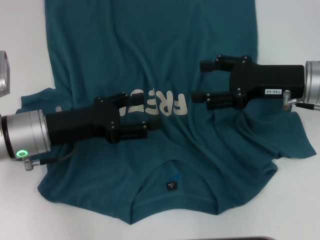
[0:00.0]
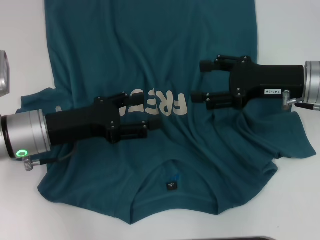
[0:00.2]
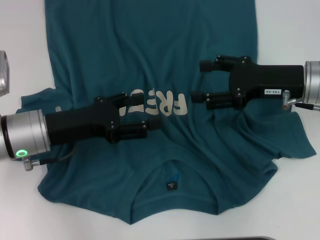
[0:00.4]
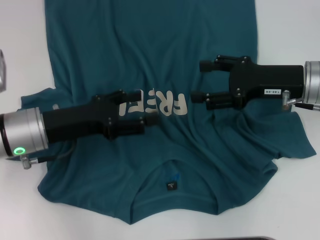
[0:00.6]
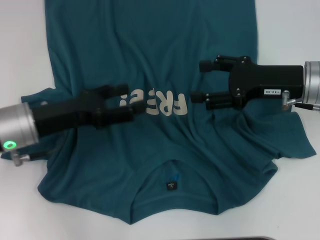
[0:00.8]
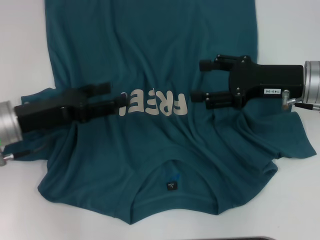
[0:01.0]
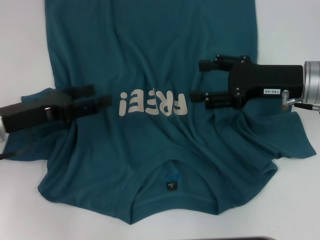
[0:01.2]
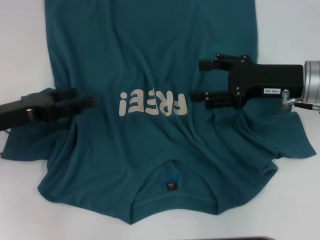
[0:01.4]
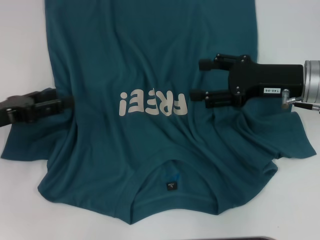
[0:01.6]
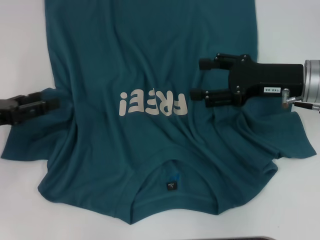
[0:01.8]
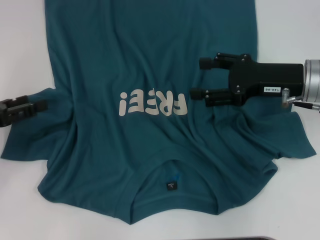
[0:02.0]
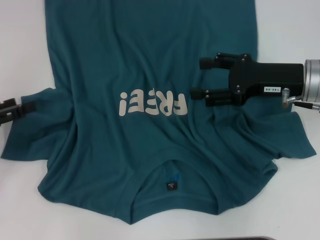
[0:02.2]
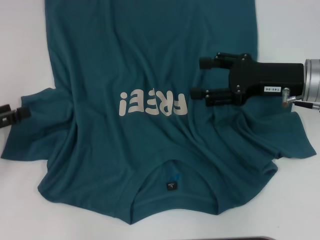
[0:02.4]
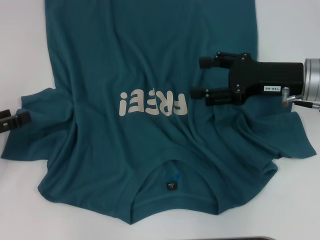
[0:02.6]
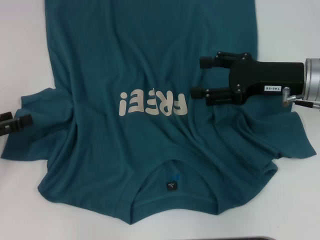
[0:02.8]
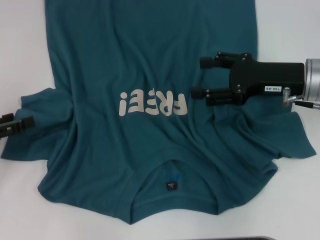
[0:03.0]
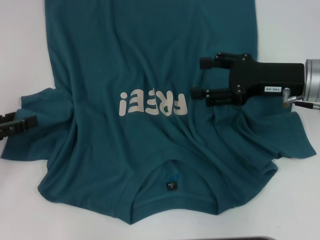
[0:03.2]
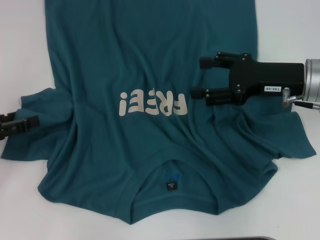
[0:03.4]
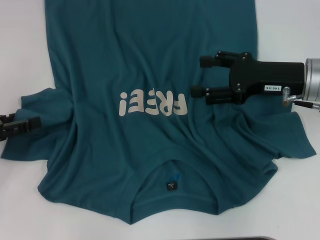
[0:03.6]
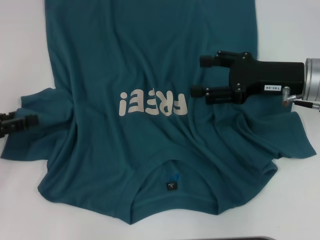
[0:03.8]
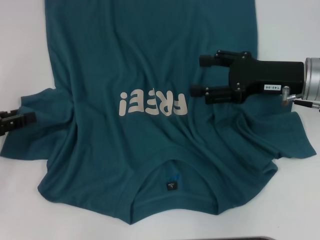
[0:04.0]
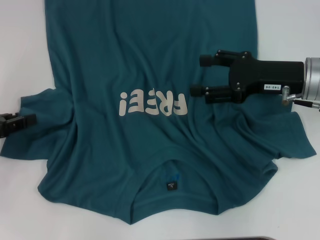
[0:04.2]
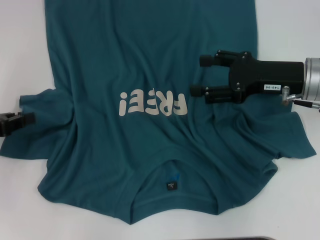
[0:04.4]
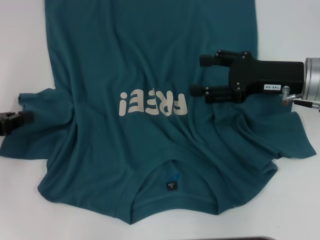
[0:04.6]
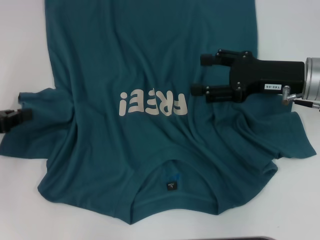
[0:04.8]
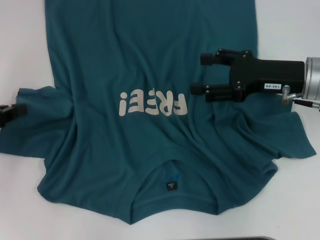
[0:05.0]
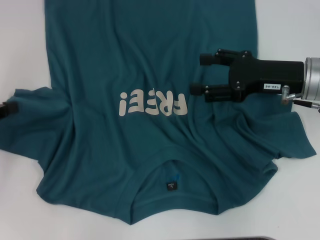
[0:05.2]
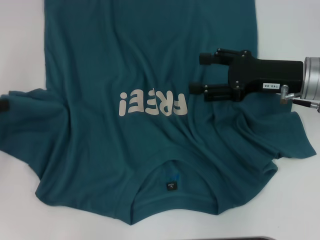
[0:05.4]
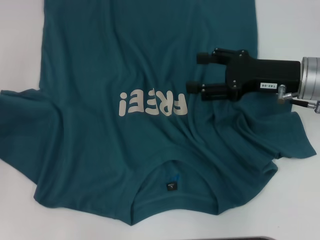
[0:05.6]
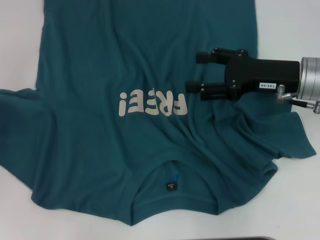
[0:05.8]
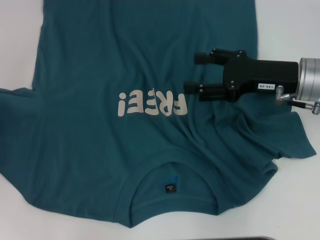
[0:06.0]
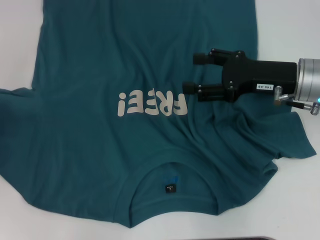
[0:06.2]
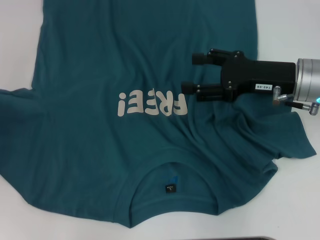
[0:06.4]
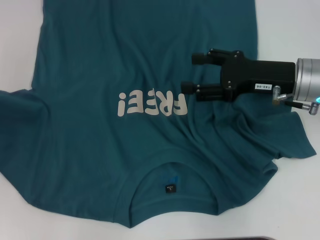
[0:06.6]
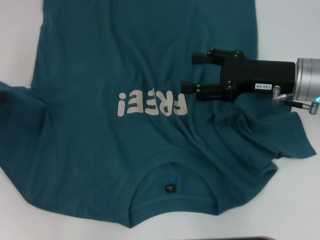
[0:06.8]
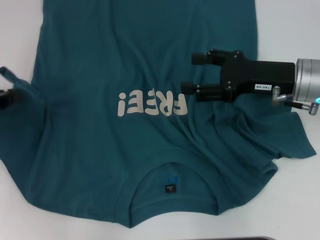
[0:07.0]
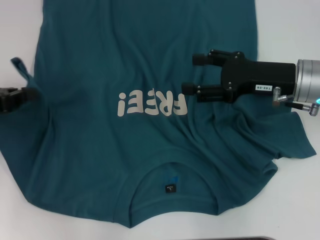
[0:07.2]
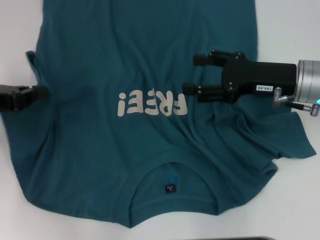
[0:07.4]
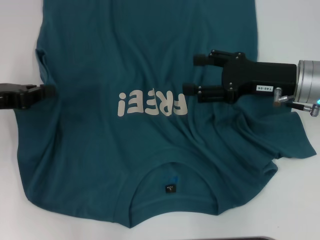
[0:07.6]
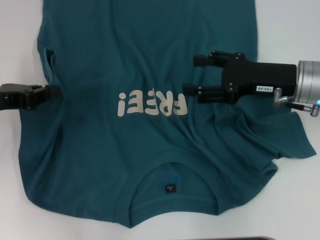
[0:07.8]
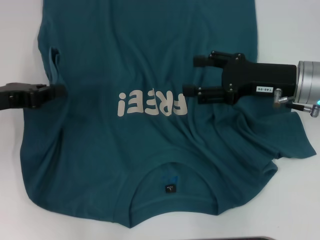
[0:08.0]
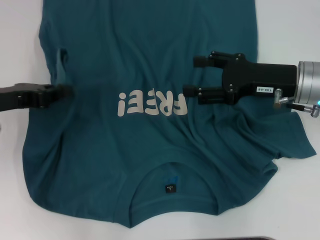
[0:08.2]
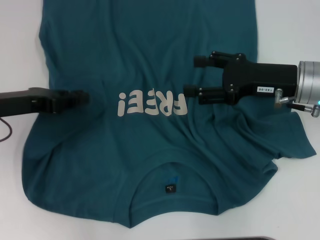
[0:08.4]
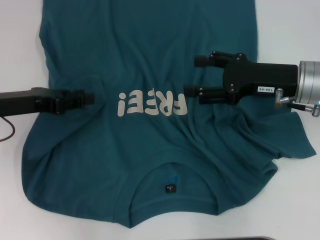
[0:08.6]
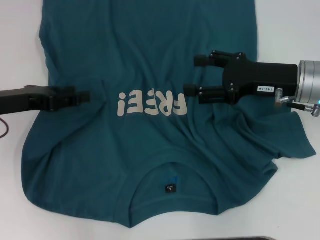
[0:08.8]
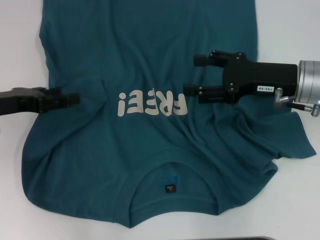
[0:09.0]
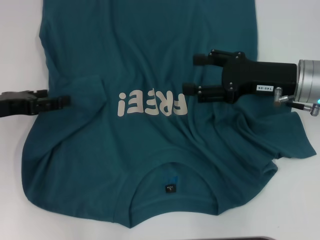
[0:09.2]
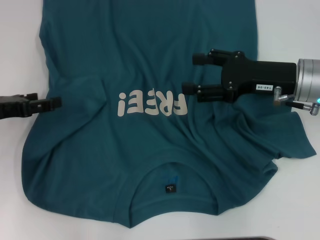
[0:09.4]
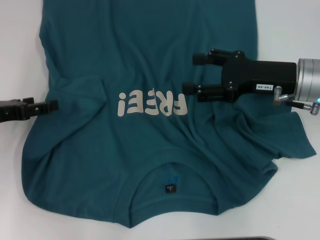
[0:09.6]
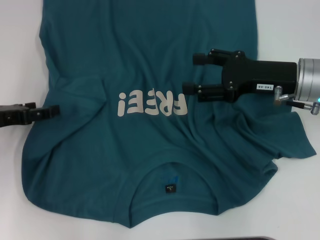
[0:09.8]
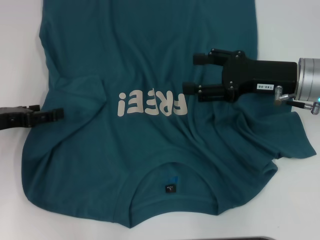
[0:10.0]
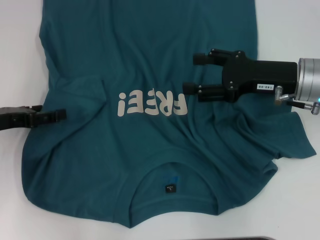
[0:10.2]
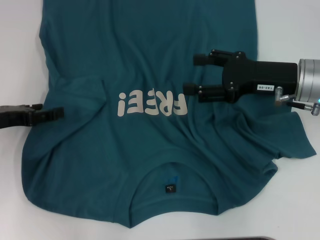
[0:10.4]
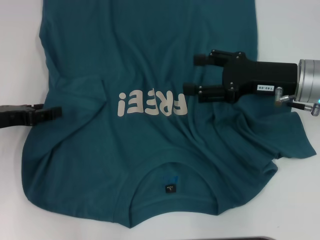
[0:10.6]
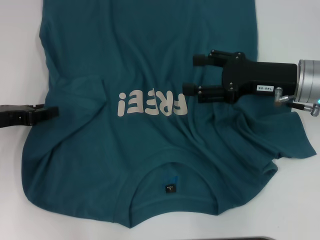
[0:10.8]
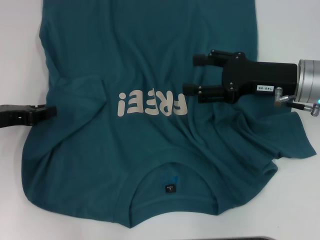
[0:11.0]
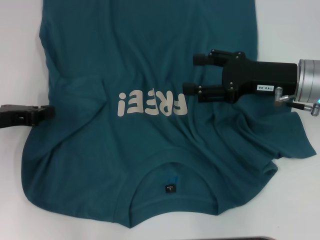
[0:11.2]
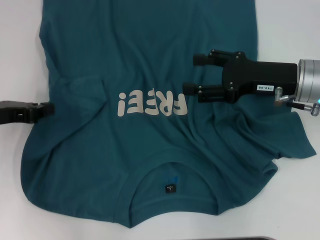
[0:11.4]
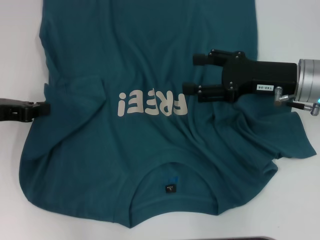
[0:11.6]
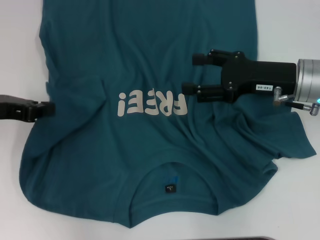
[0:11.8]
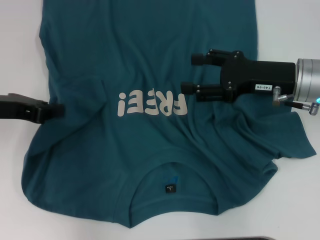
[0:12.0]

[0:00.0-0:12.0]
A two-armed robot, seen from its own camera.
0:00.0 to 0:01.6: The left gripper is displaced to the left by about 10 cm.
0:01.6 to 0:03.0: The left gripper goes about 5 cm to the left.
0:03.0 to 0:04.4: The left gripper closes.
0:04.4 to 0:06.0: The left gripper changes place by some 5 cm, and closes its fingers.
0:06.0 to 0:07.6: The left gripper moves to the right, roughly 10 cm.
0:07.6 to 0:09.0: The left gripper opens its fingers.
0:09.0 to 0:10.4: There are only small adjustments of the grippers.
0:10.4 to 0:12.0: The left gripper moves upward, roughly 5 cm, and closes.

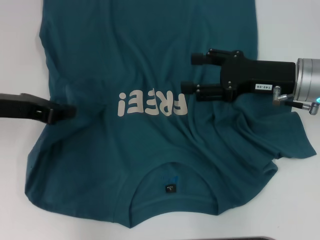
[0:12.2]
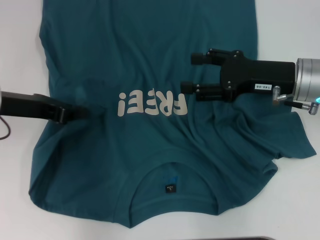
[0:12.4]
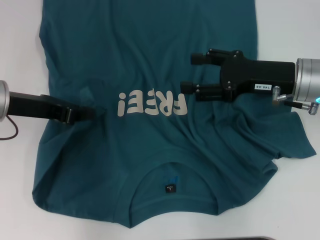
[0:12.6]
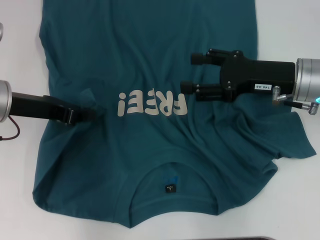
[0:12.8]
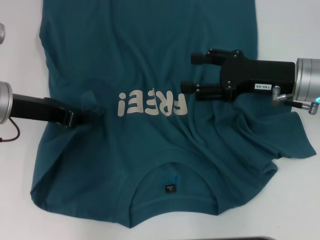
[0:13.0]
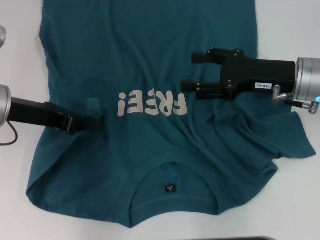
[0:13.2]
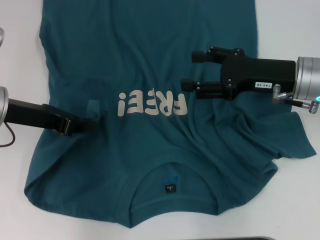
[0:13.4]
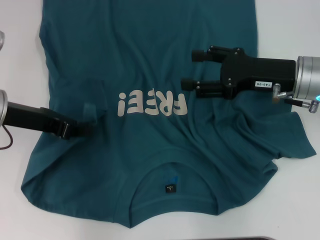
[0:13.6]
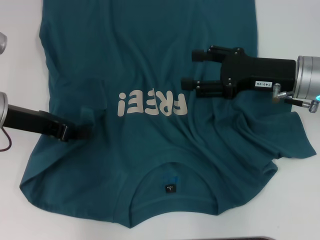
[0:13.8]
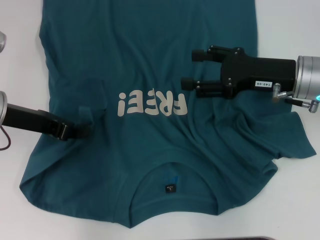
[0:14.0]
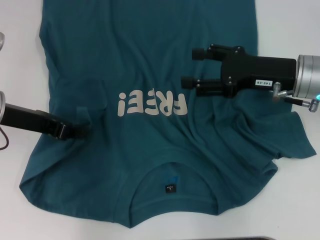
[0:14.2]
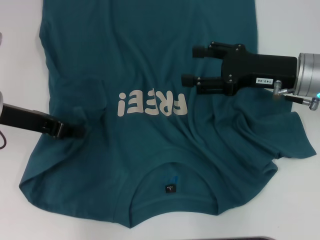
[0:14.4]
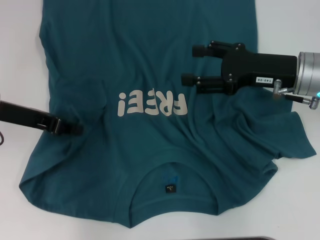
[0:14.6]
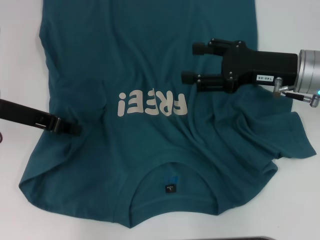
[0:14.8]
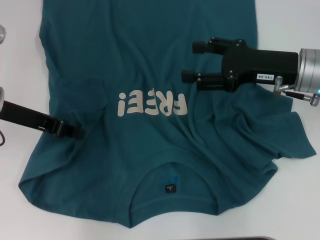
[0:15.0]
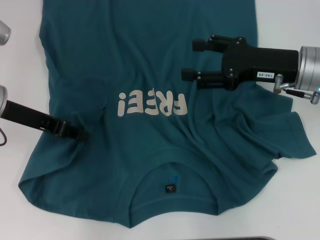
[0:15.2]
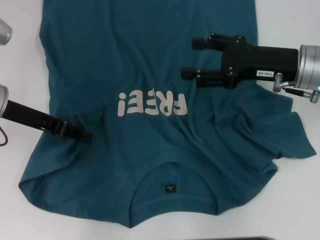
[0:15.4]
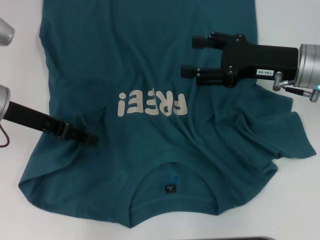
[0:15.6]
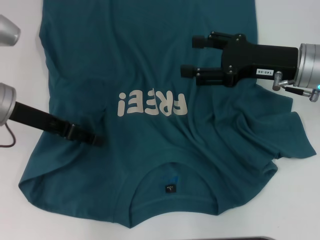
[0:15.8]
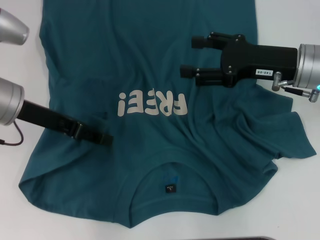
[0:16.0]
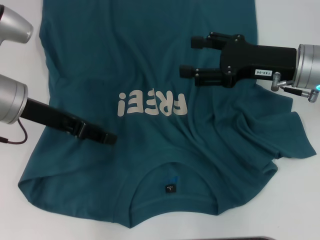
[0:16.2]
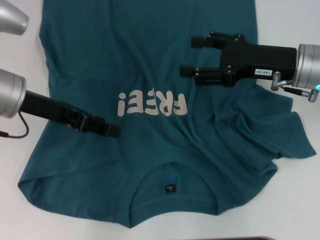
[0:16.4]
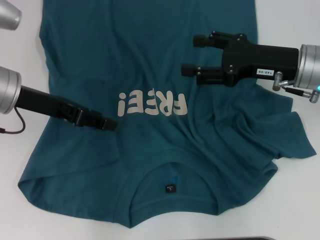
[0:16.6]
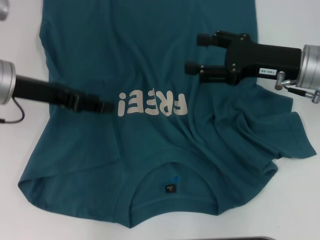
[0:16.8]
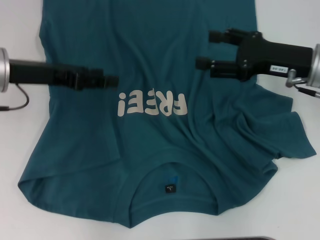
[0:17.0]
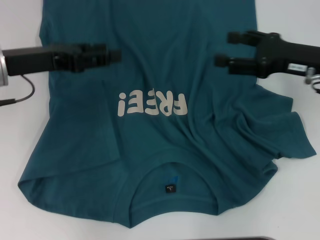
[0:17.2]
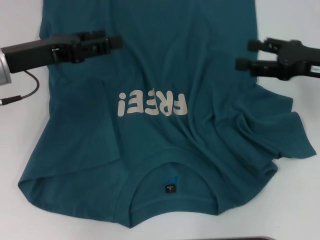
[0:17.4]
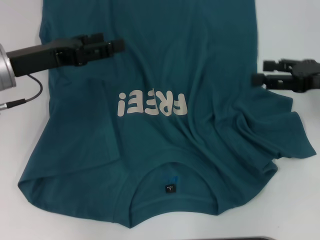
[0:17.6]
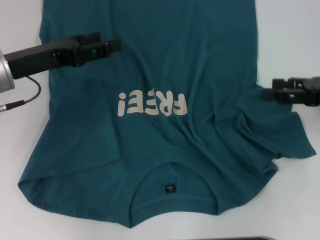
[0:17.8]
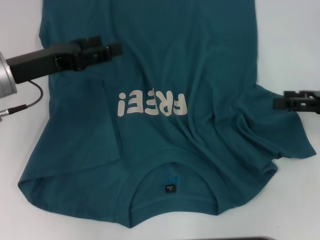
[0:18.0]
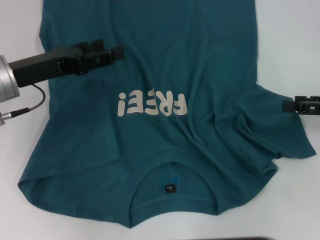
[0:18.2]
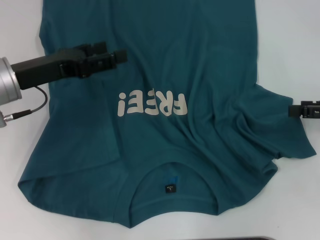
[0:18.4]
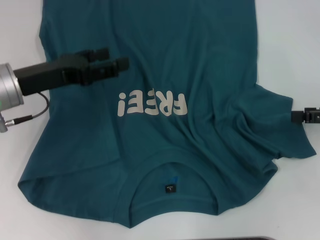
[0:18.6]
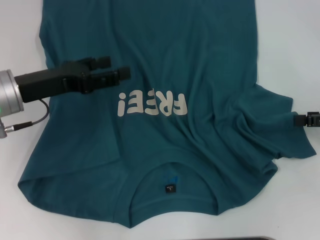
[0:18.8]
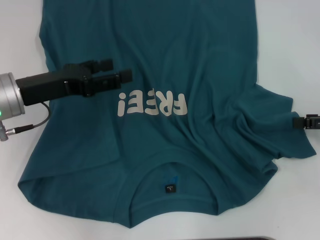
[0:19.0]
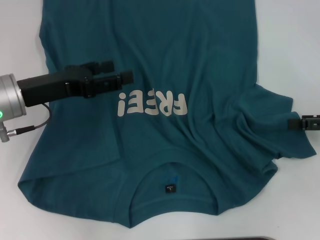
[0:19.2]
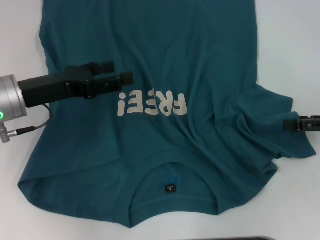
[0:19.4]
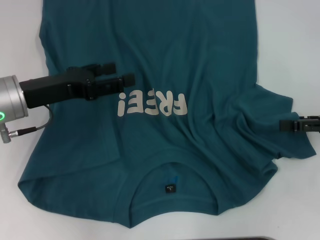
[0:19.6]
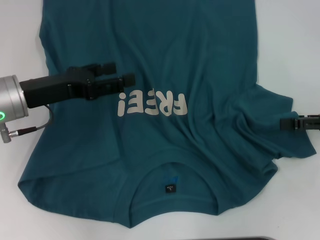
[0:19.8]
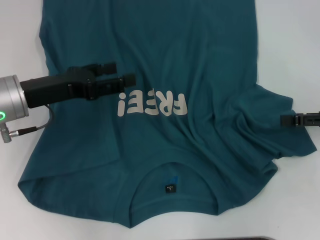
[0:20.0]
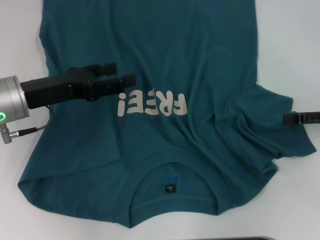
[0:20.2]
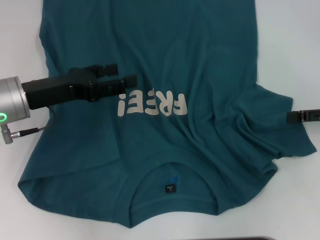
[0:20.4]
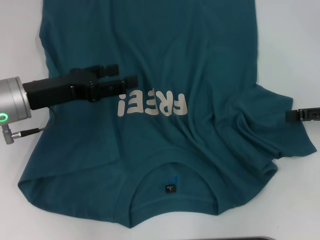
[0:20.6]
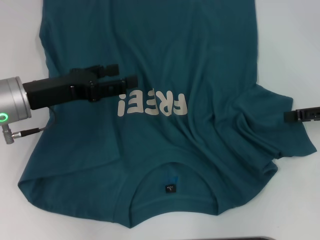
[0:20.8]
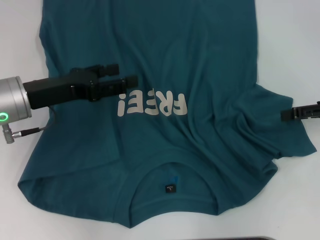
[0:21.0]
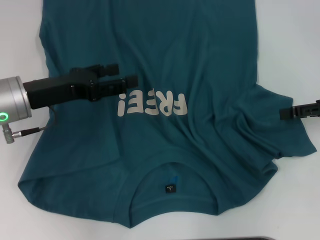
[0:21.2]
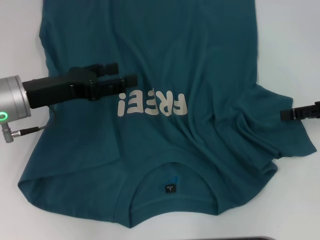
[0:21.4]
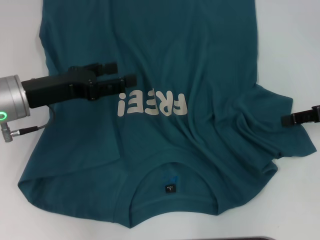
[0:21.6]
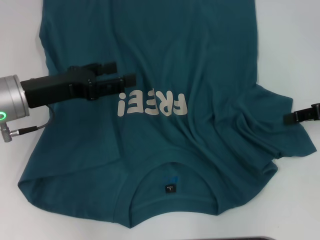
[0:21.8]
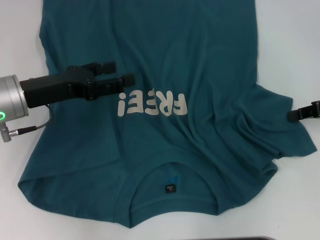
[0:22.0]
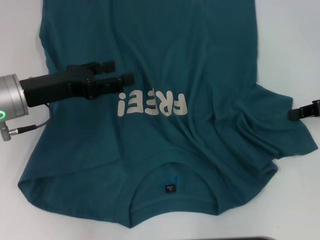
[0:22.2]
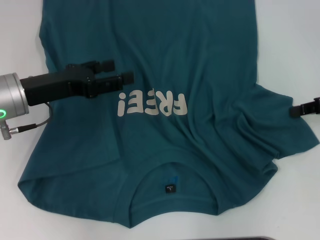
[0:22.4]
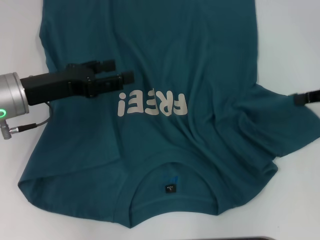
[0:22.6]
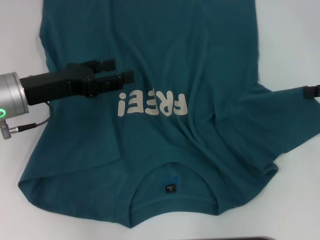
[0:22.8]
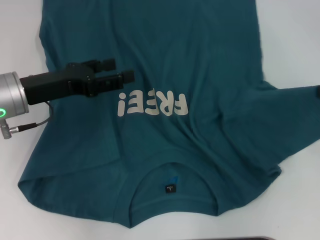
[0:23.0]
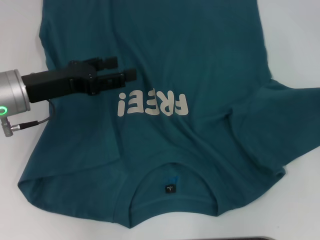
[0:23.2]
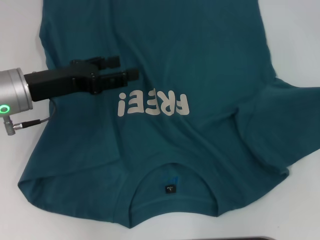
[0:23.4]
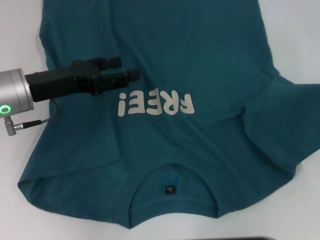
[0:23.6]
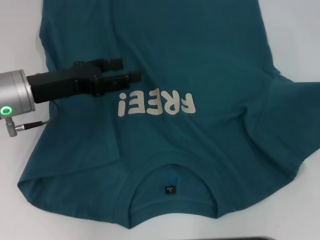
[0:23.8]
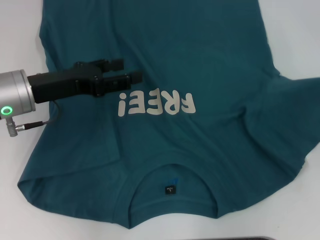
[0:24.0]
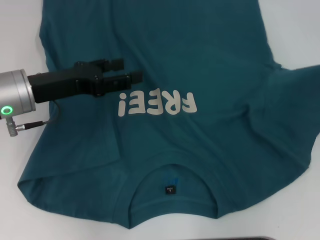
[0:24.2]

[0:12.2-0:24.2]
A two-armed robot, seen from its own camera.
Step, 0:12.2 to 0:16.2: Fold the bottom left sleeve with your left hand.
0:12.2 to 0:15.2: The grippers make only small movements.
0:15.2 to 0:16.6: The left gripper opens up.
0:16.6 to 0:18.2: The right gripper shifts approximately 15 cm to the right and backward.
0:18.2 to 0:21.2: The grippers stay close to where they were, moving slightly.
0:21.2 to 0:22.6: The right gripper closes.
0:22.6 to 0:24.2: The right gripper is displaced to the right by roughly 5 cm.
